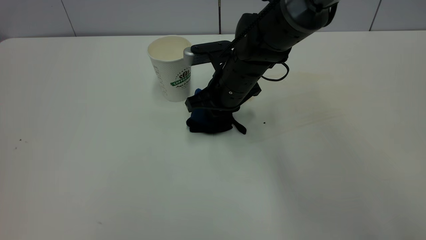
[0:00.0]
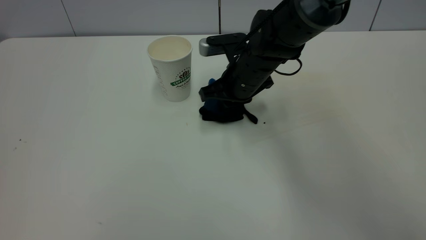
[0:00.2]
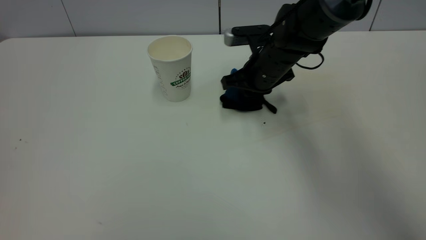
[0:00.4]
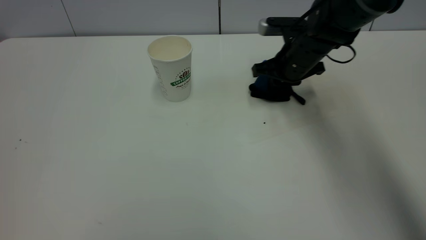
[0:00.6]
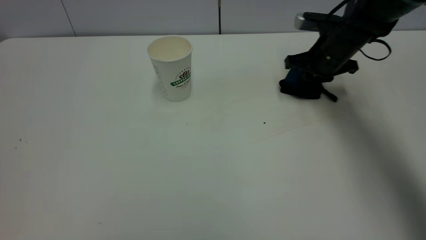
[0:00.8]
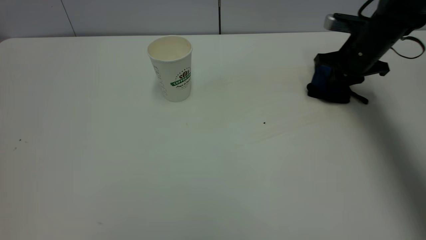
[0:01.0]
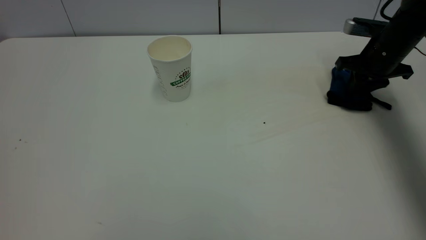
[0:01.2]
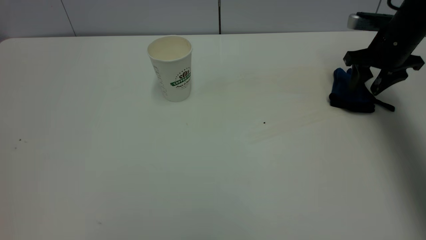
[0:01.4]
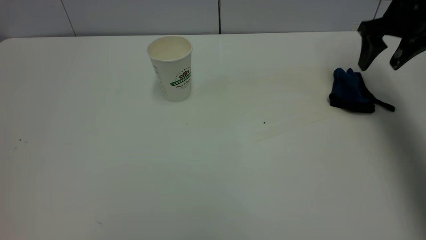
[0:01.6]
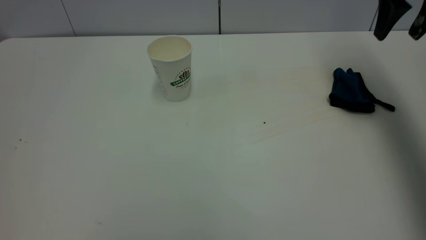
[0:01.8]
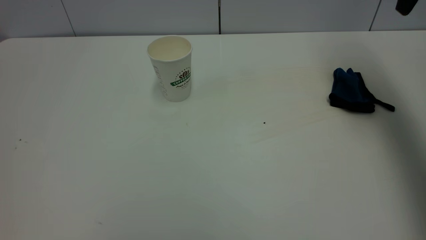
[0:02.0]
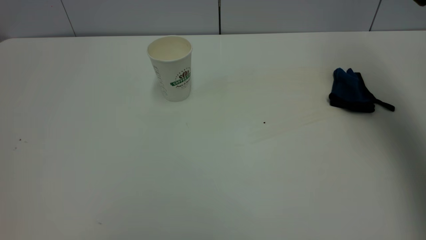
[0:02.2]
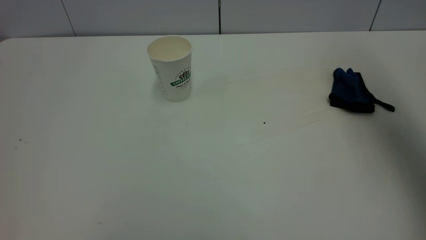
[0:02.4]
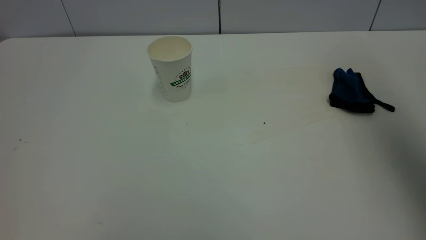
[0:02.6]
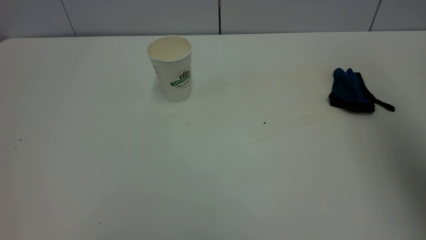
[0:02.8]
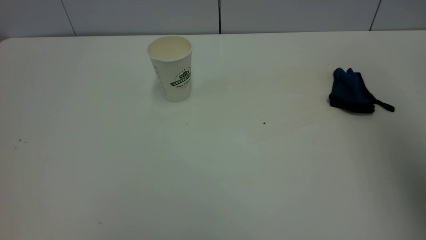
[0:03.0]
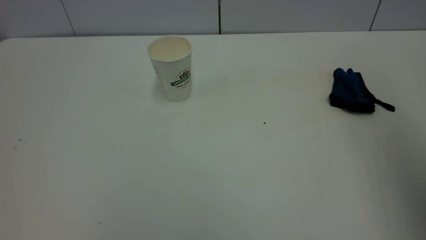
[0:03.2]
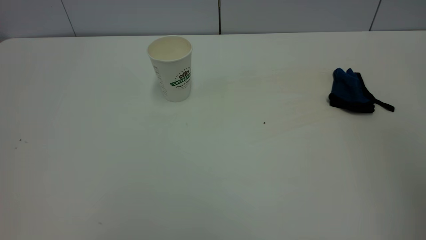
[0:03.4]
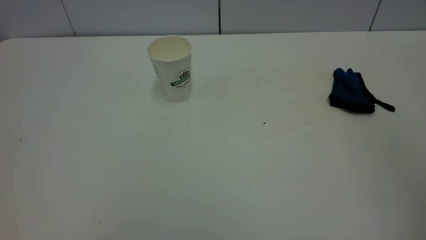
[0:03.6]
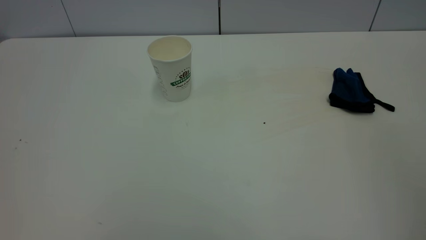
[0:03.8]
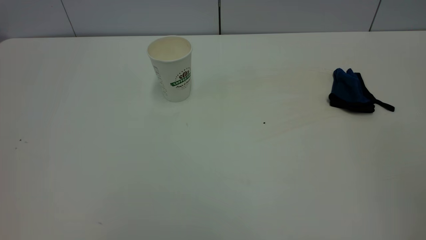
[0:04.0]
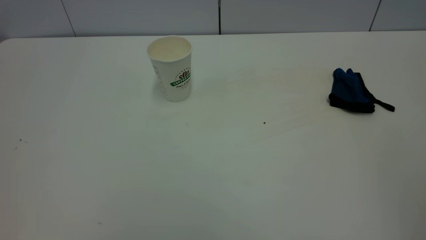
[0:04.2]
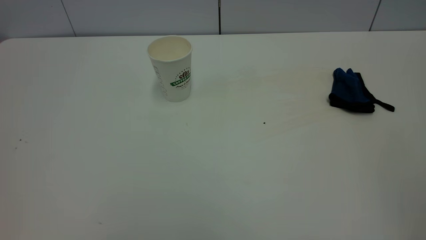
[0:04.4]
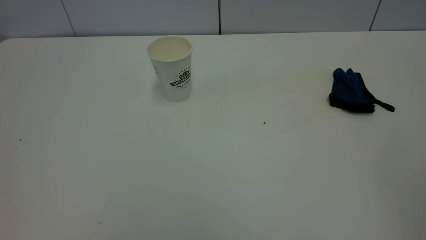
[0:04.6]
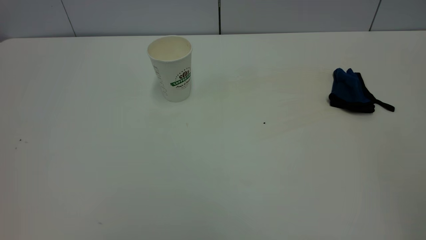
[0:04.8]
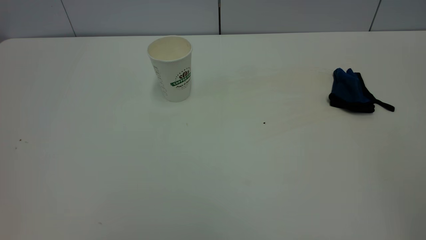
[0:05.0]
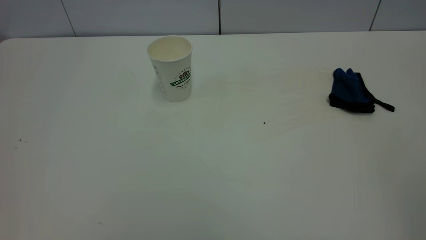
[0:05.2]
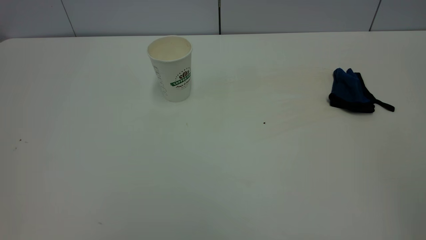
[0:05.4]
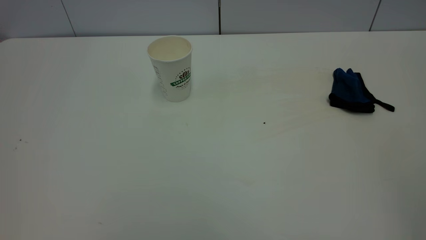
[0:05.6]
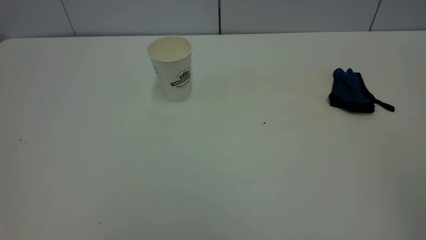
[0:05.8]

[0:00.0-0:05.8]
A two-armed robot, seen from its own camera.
Task of the whole recording: the left gripper pick up the fallen cup and place it upright, the right gripper grasp the blue rag and wipe the tea stain on the table, the right gripper put the blue rag back in its original position.
0:00.0 to 0:01.4: The right gripper goes some 30 cm to the right, and opens.
0:01.4 to 0:02.8: The right gripper shifts some 35 cm upward and backward.
0:02.8 to 0:04.4: The right gripper heads backward, covering about 25 cm.

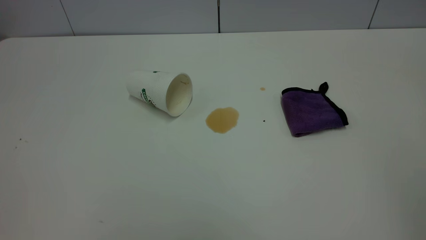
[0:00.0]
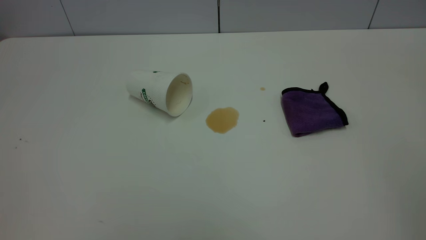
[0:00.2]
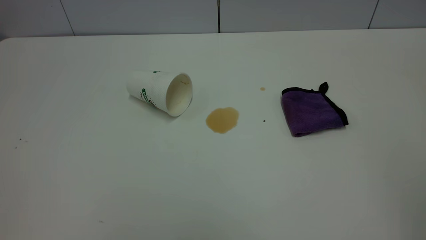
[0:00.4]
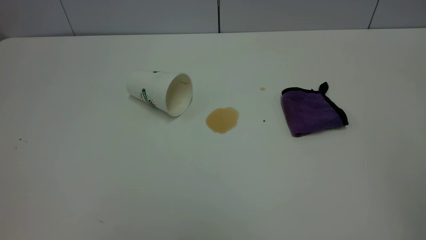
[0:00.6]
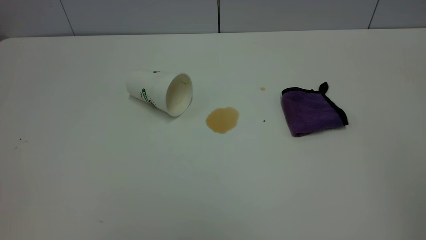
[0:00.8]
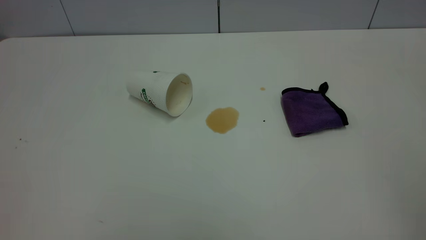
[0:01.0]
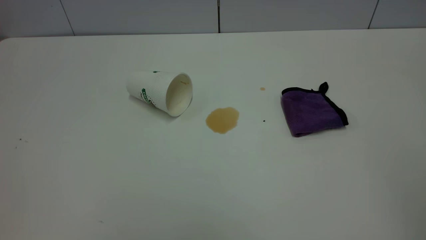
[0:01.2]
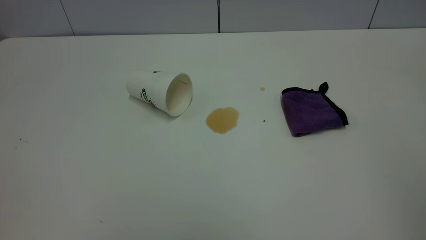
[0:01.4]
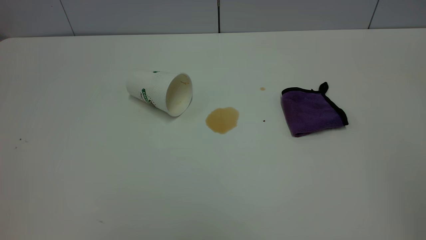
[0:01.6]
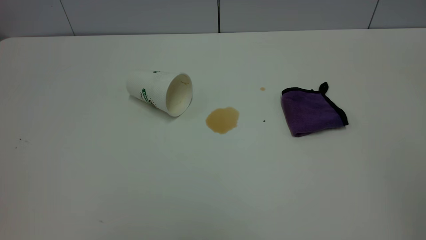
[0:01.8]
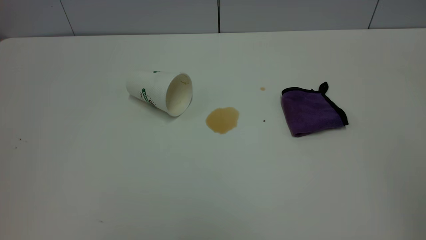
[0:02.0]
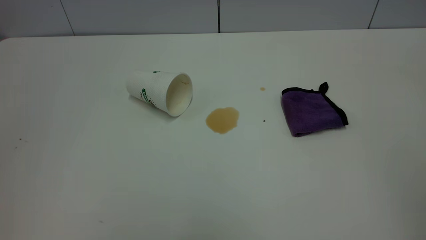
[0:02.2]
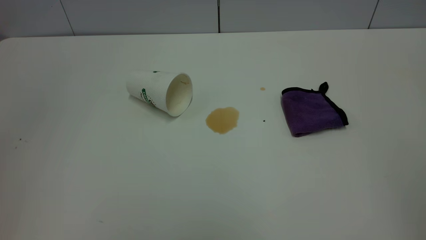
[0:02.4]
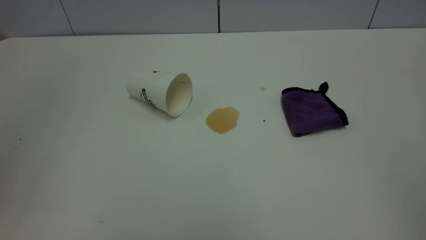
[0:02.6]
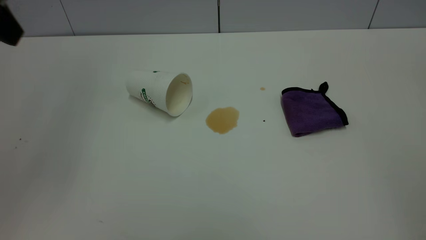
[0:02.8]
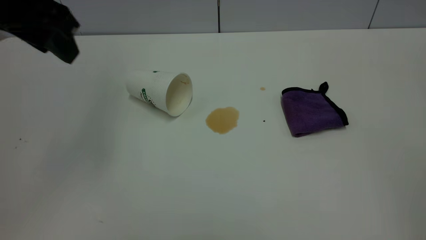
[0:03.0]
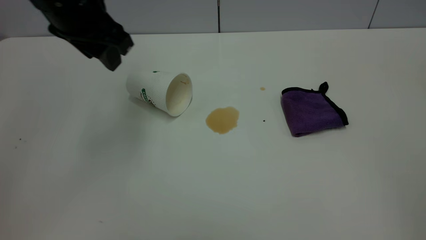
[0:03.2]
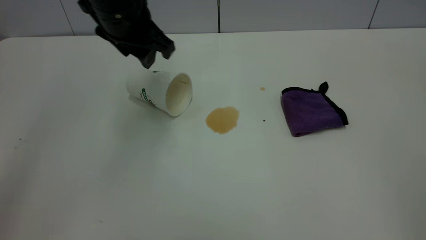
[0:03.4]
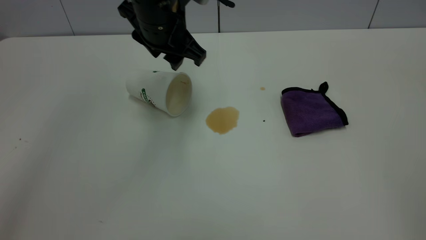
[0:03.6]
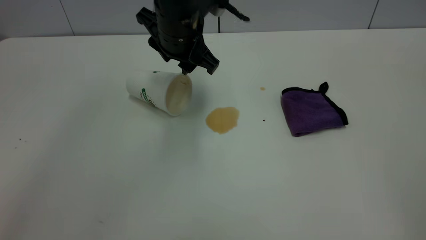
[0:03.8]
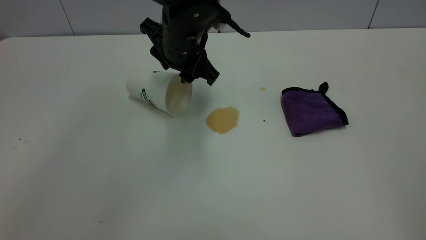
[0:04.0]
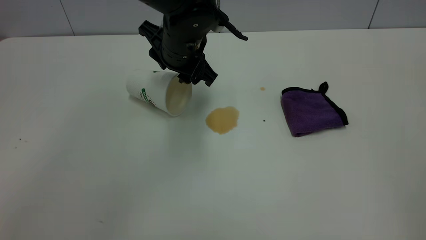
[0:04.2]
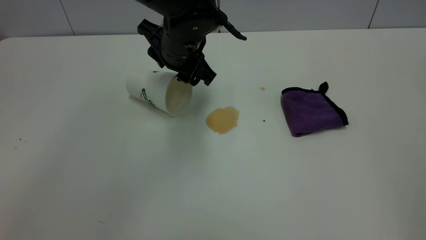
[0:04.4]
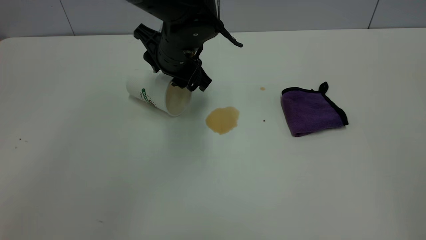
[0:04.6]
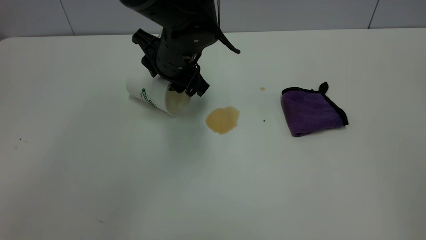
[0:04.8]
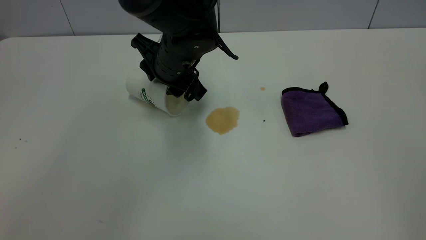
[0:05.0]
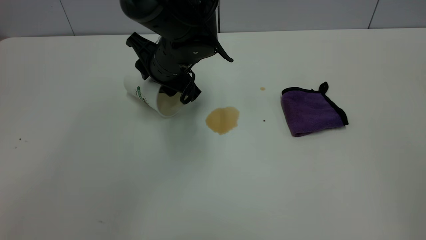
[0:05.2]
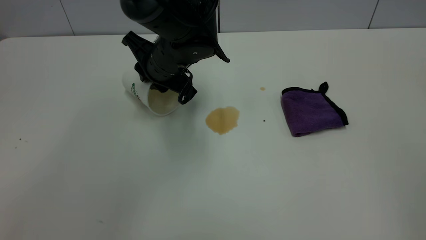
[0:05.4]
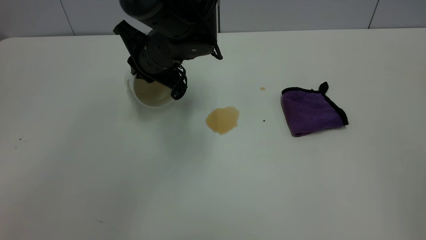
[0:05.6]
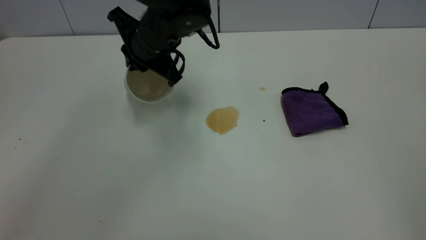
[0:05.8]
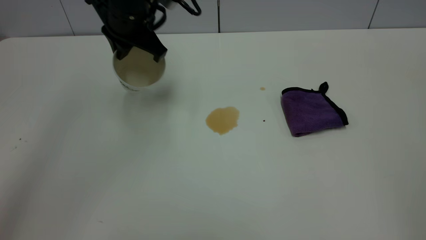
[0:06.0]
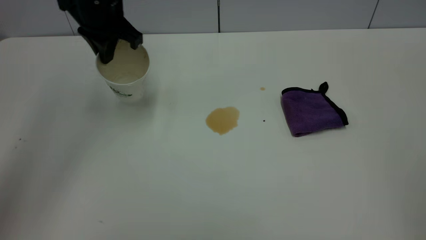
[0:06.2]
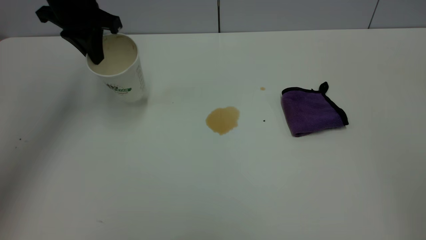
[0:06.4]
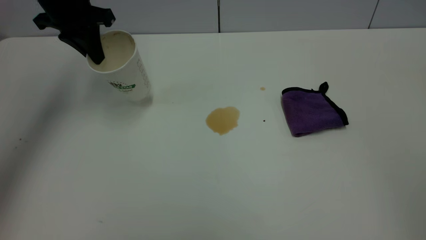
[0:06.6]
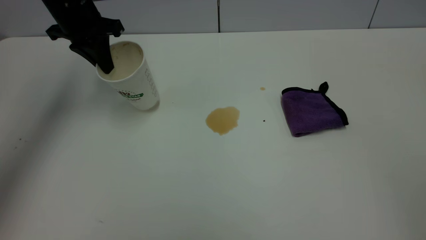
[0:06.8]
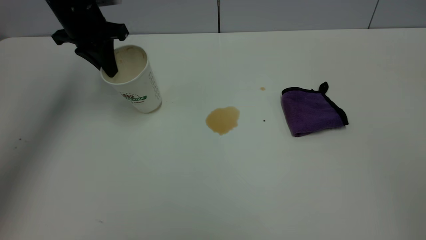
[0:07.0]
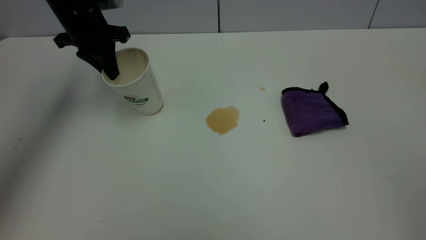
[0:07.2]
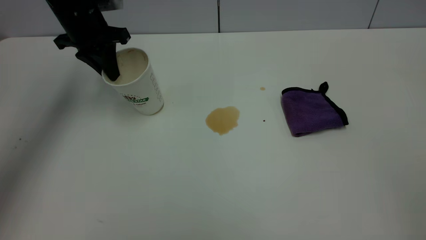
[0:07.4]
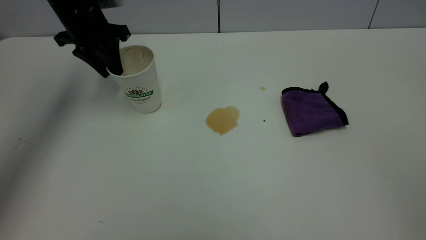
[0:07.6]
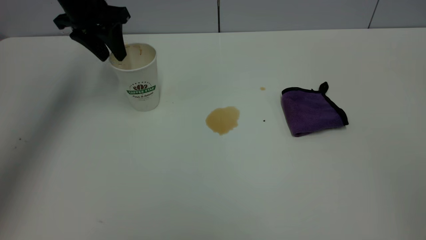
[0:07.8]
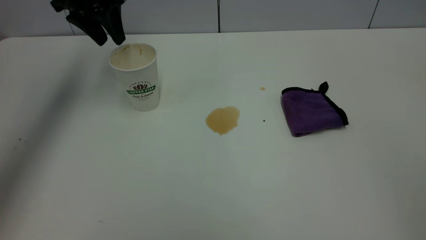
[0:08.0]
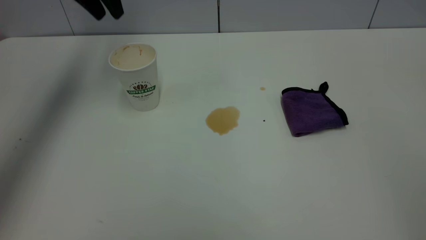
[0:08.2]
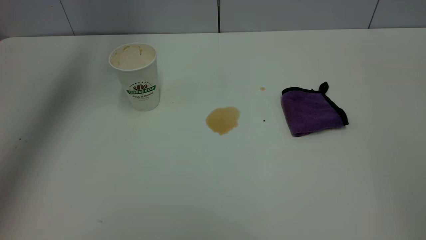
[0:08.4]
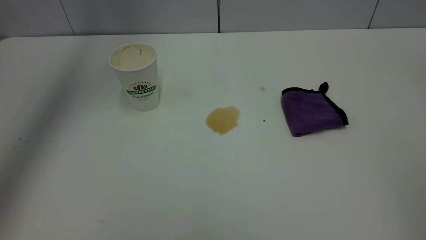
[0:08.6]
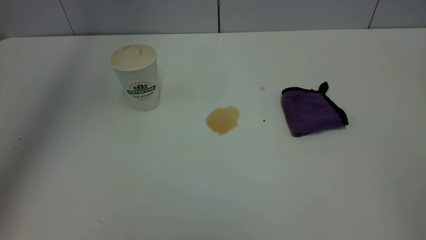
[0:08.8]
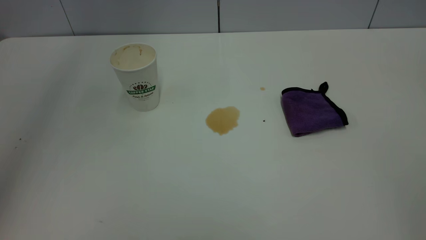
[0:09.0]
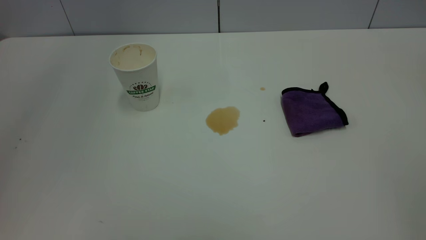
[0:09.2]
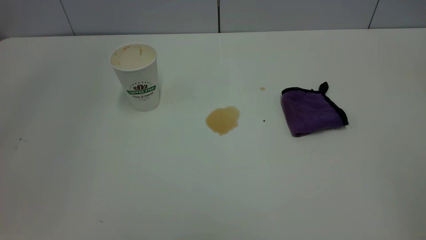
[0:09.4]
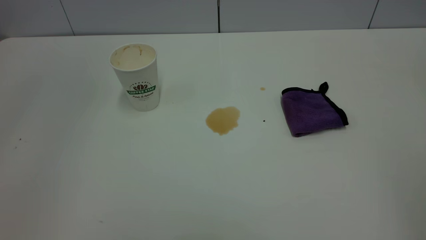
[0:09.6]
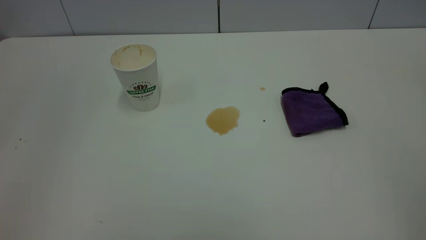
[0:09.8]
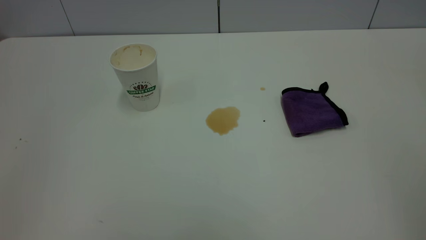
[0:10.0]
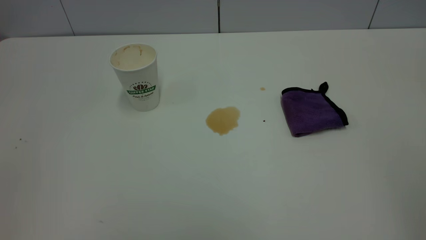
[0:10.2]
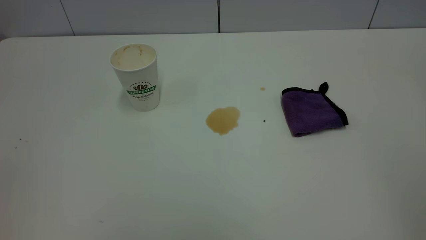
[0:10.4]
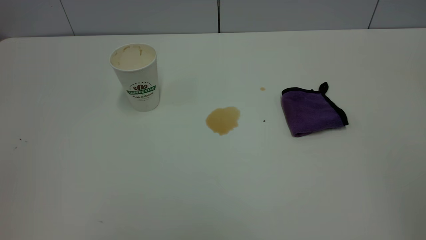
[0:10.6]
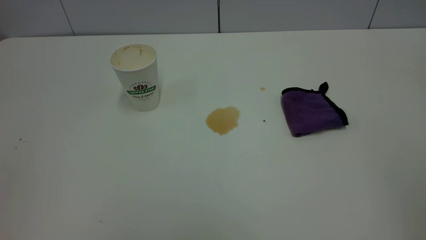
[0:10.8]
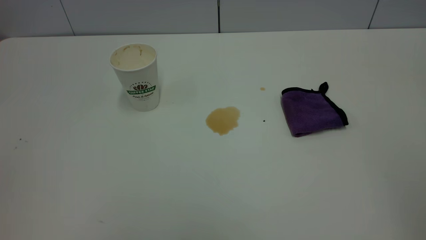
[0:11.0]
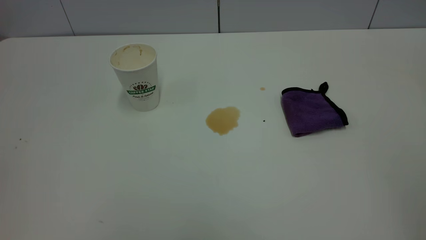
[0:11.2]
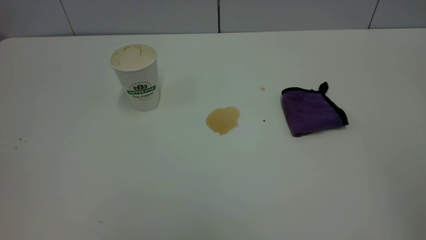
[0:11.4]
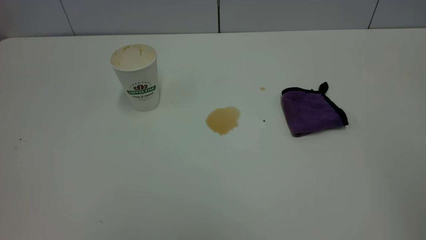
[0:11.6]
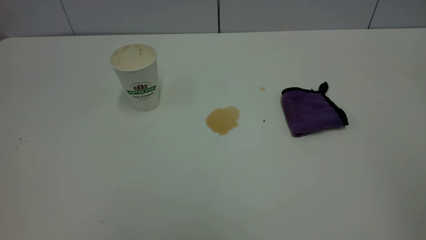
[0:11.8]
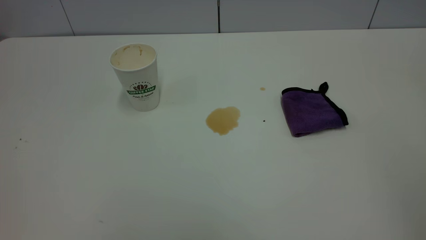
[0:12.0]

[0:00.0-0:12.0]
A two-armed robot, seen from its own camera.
Task of the whole recording: the left gripper pick up the fallen cup and place it upright, the right gripper grasp the purple rag and wipe the tea stain on the table, the right gripper put the purple rag back in its original position.
Step, 0:00.0 to 0:07.8: Stand the paper cup upright.
0:00.0 to 0:01.6: The two grippers keep their place.
0:01.6 to 0:03.0: The left gripper goes roughly 30 cm forward.
0:03.0 to 0:04.4: The left gripper is displaced to the right, downward and forward by some 25 cm.
0:04.4 to 0:06.0: The left gripper is displaced to the left and upward by roughly 10 cm, and closes up.
0:06.0 to 0:07.6: The left gripper moves to the left and forward, roughly 15 cm, and opens its fingers.
0:07.6 to 0:09.0: The left gripper shifts approximately 35 cm upward and backward.
